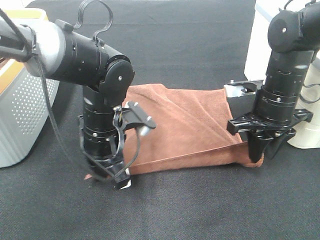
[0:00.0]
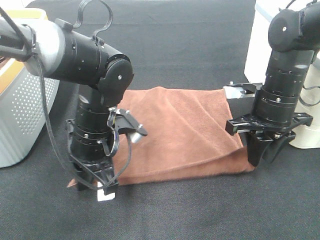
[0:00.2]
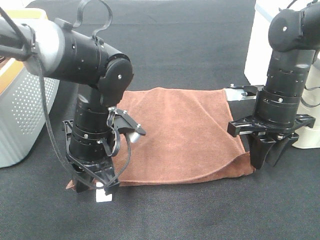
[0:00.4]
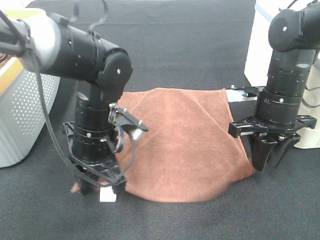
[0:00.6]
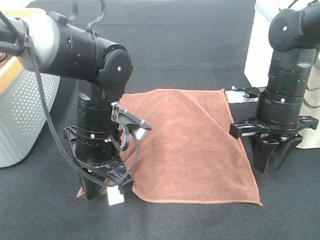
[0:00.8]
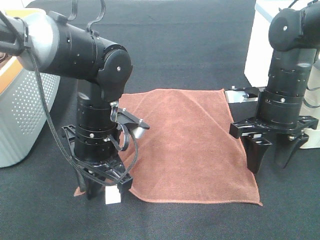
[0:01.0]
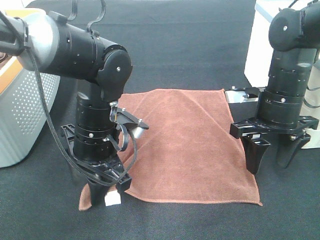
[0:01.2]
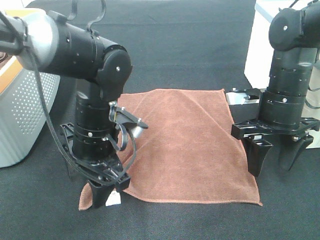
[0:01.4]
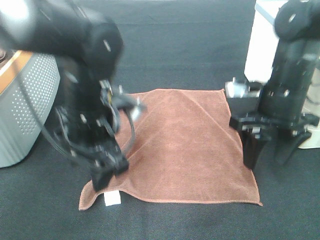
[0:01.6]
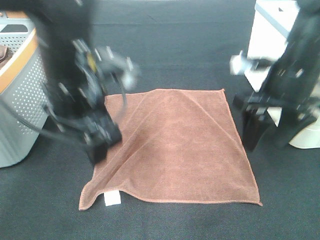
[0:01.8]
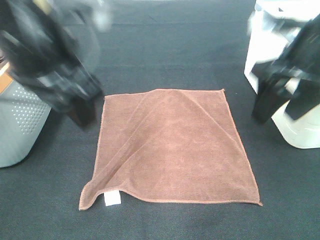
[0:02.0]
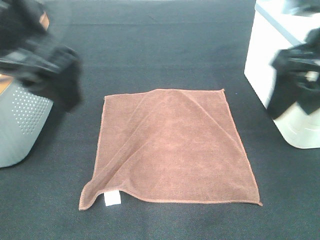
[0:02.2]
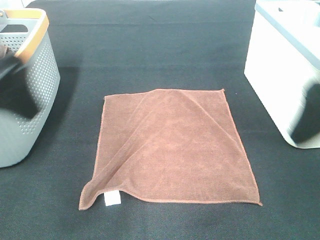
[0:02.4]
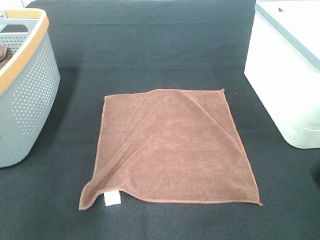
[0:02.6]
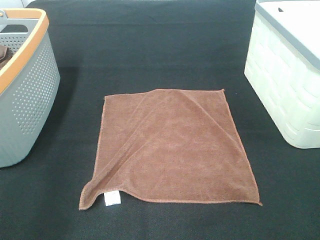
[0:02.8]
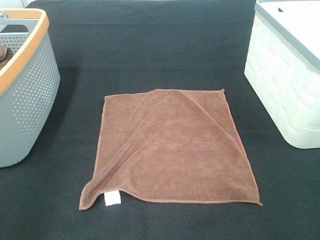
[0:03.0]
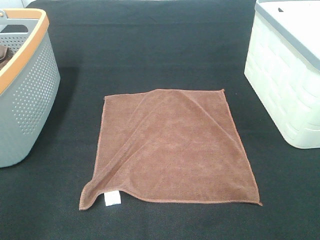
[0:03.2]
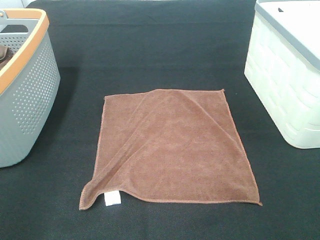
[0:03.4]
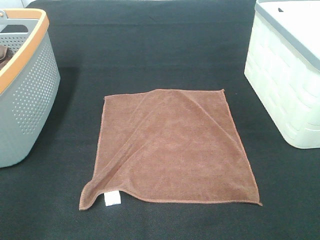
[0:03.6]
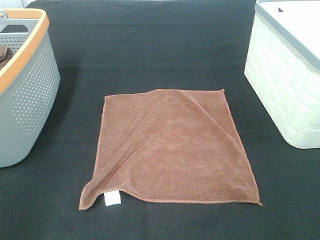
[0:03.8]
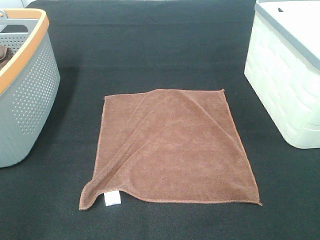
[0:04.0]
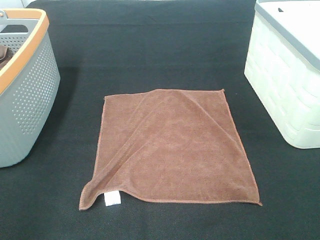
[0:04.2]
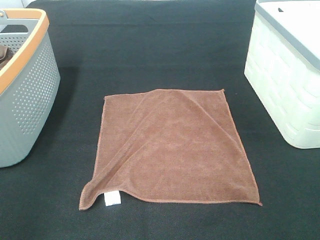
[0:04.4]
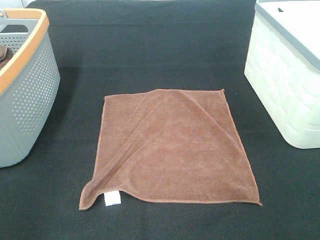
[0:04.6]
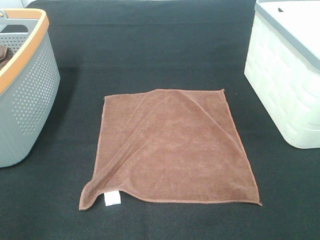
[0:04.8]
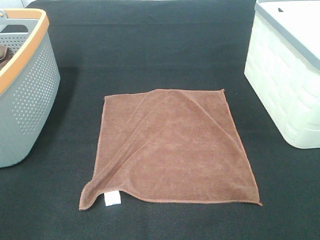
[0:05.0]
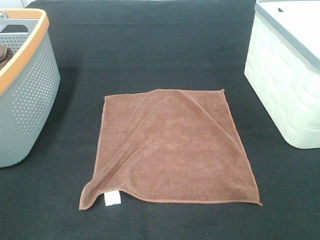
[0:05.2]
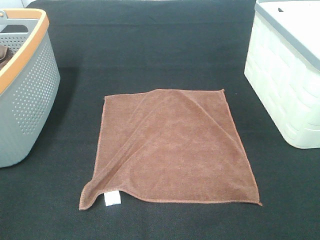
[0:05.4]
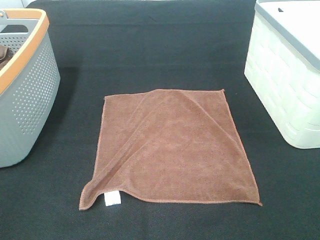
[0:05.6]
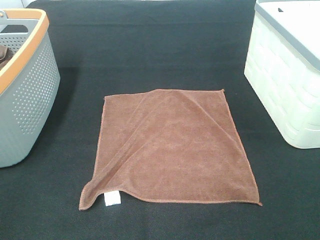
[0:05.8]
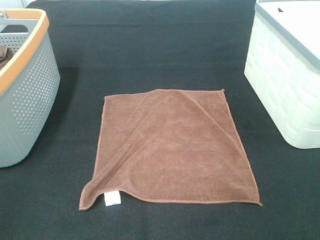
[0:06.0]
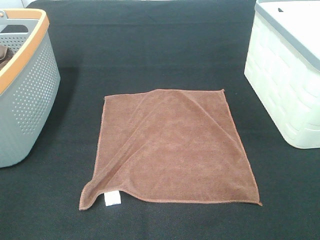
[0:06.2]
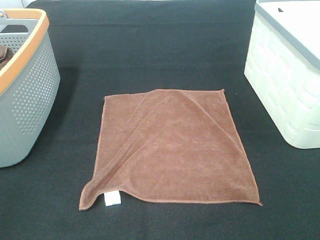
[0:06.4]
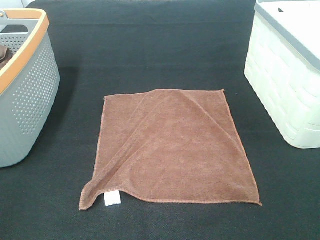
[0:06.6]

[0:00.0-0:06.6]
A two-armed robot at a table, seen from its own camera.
Task of the whole recording: Remove the towel and place it.
0:00.0 to 0:01.6: The right gripper opens. The left gripper shifts some 5 cm upward, and opens.
0:01.6 to 0:03.2: The right gripper goes approximately 30 cm backward. The left gripper is displaced backward, to the left and upward by approximately 30 cm.

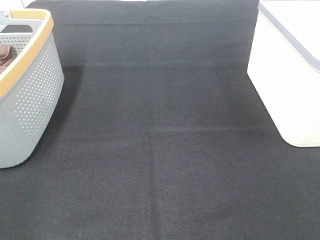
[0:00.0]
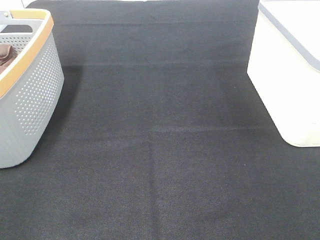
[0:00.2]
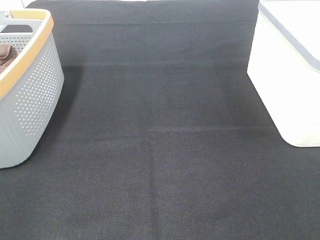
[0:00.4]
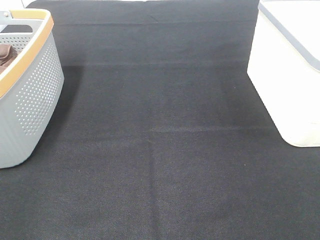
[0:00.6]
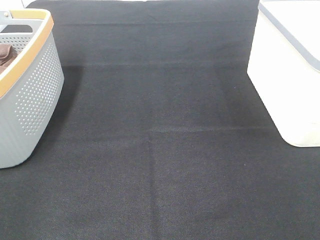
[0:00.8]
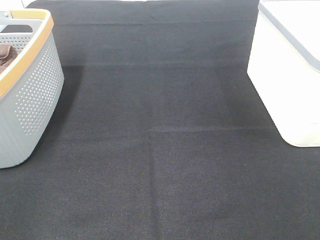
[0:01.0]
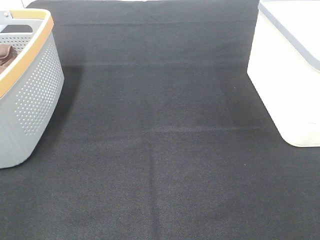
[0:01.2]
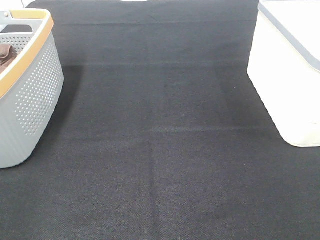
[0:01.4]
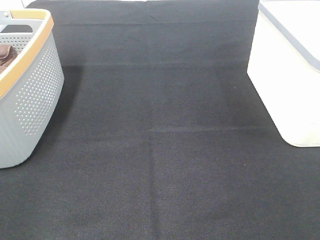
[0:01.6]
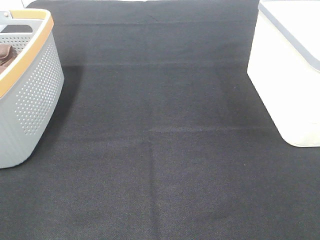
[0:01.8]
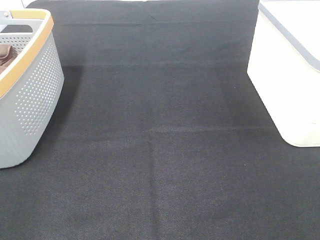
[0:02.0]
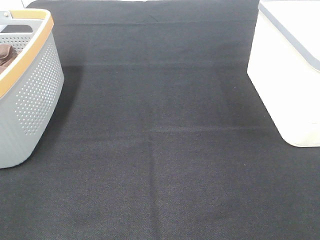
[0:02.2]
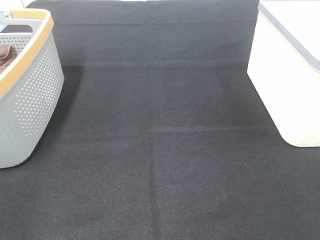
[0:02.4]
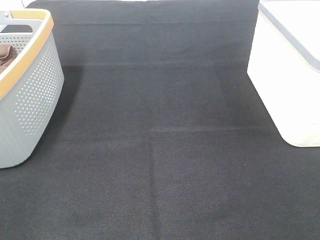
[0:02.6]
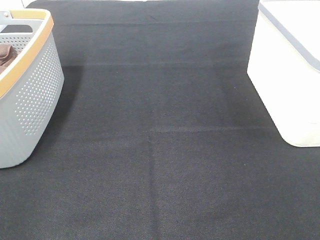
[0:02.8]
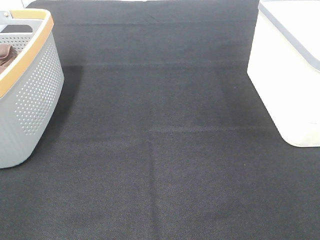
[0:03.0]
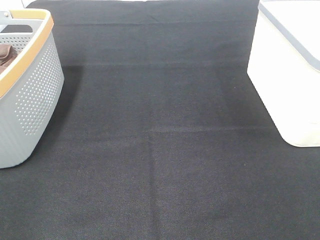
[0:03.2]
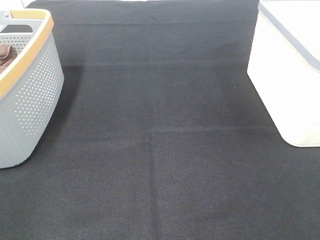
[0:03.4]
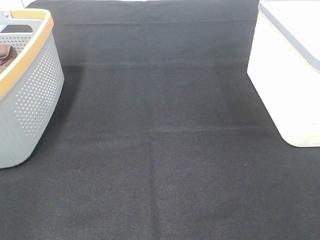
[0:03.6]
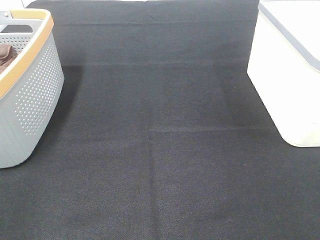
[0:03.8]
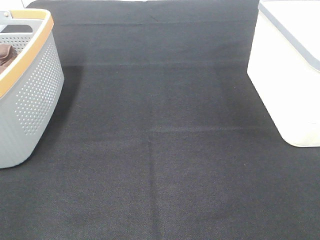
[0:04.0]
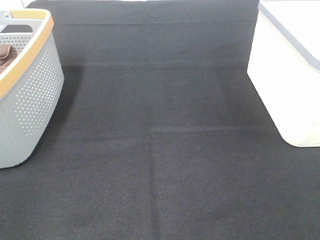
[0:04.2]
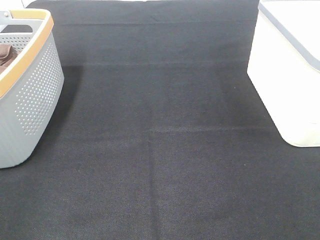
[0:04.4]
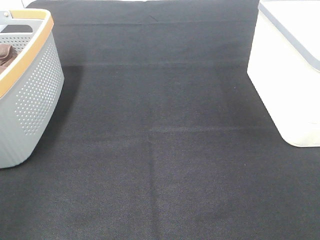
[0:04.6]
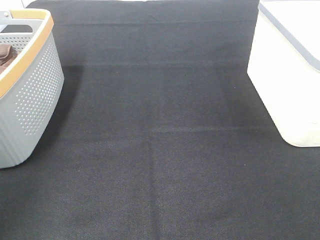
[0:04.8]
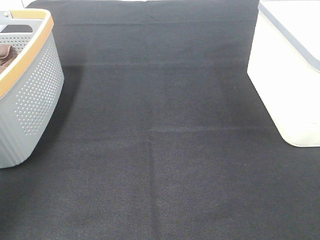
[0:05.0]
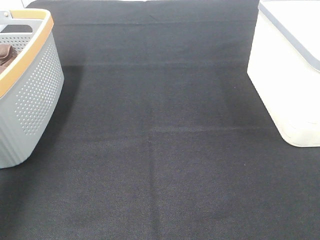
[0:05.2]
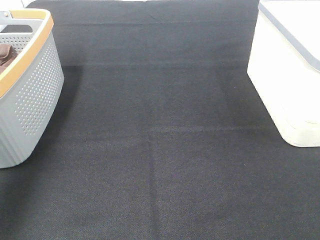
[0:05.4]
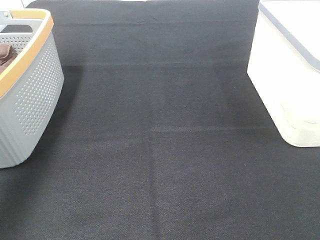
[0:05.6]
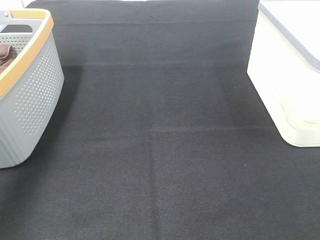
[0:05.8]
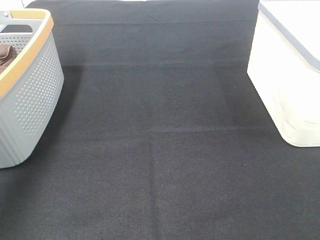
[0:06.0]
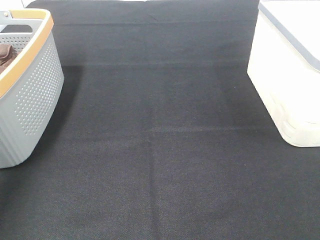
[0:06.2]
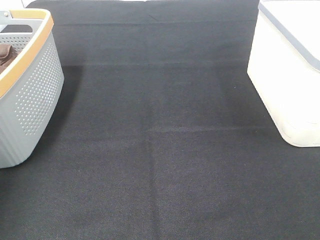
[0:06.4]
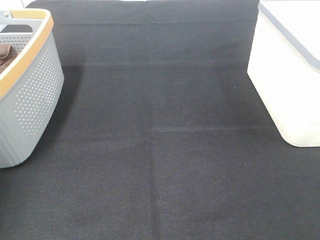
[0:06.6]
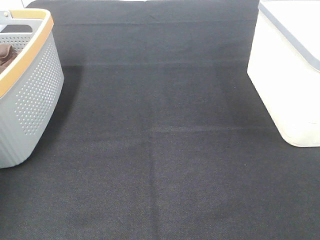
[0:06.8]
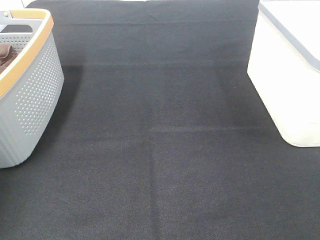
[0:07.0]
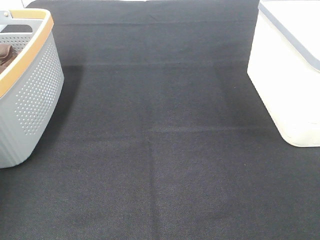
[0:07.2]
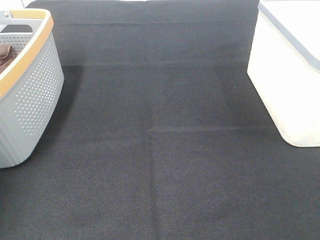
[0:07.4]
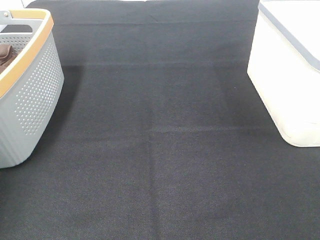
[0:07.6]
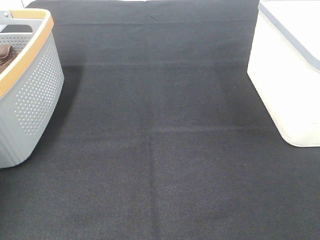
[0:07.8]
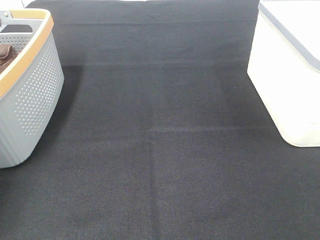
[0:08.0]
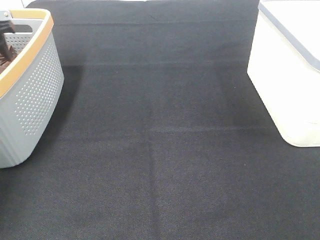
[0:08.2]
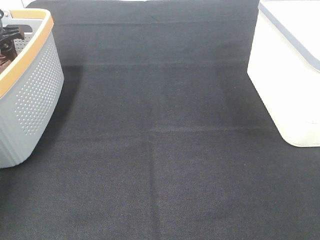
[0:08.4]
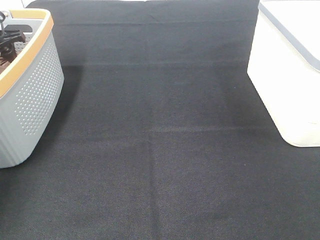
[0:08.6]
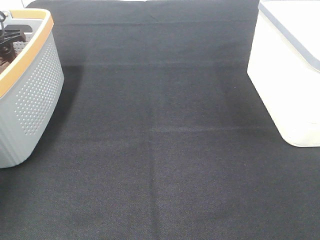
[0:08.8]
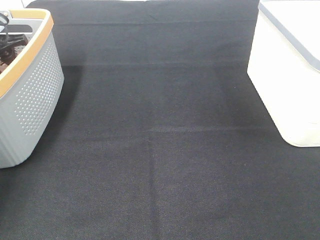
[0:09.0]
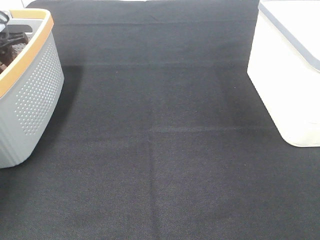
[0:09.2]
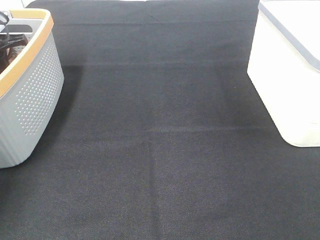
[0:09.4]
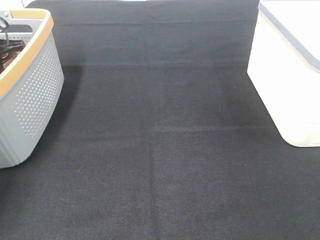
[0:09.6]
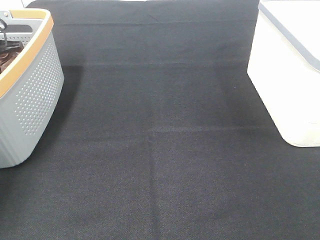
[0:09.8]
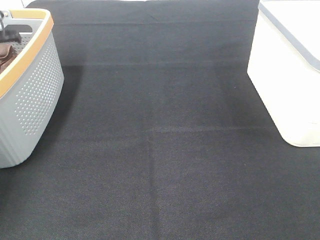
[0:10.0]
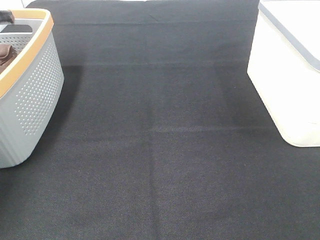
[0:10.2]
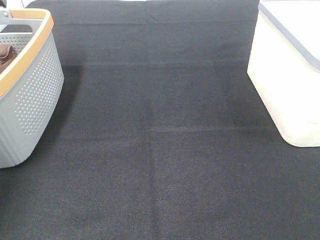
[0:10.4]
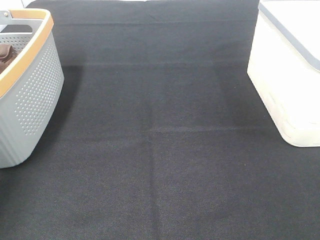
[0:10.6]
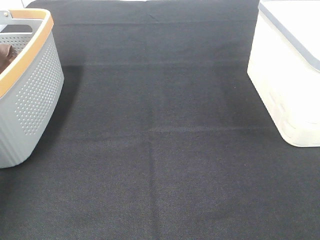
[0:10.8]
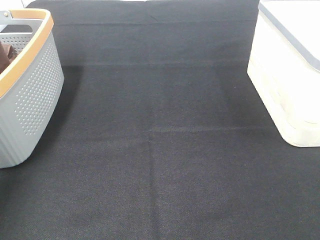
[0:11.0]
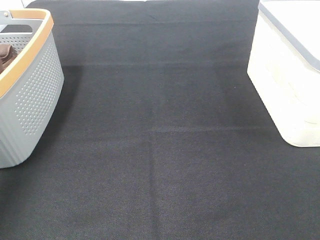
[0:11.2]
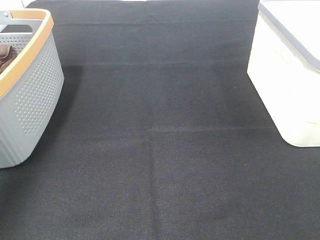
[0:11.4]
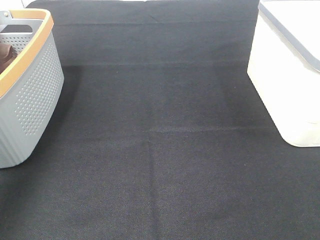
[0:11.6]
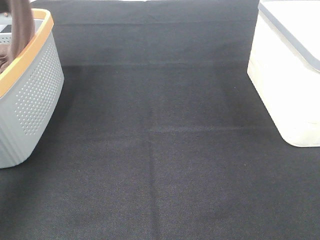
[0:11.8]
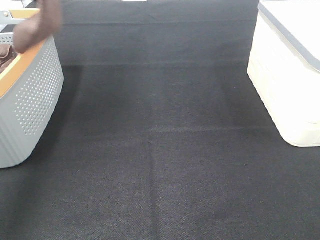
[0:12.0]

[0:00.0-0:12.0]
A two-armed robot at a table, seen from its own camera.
Task of the whole recording: Remove the towel and place it.
0:00.0 to 0:03.0: Both grippers stay put.
0:04.4 to 0:06.0: The left gripper moves forward, roughly 35 cm.
0:07.6 to 0:09.0: The left gripper heads downward, covering roughly 10 cm.
0:09.0 to 0:10.4: The left gripper travels upward by some 10 cm, and closes up.
0:10.4 to 0:12.0: The left gripper moves upward, backward and to the right, approximately 35 cm.

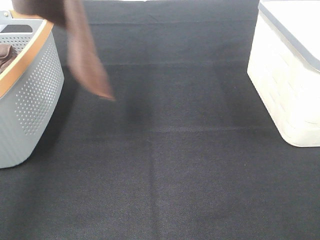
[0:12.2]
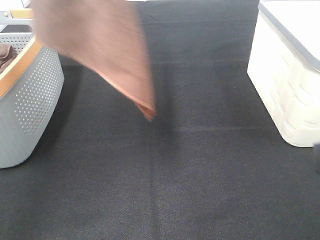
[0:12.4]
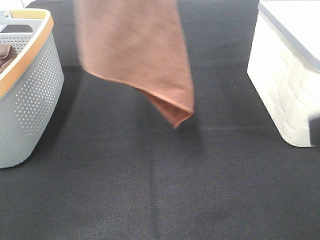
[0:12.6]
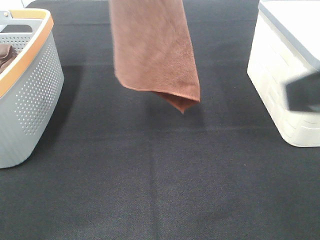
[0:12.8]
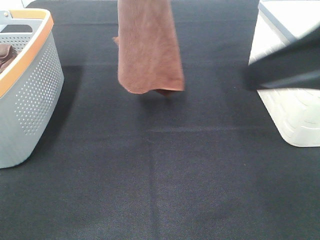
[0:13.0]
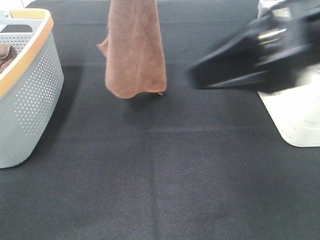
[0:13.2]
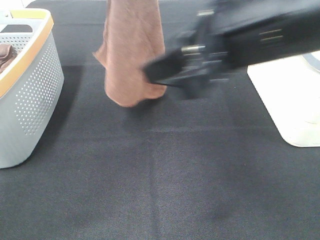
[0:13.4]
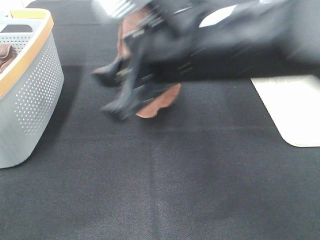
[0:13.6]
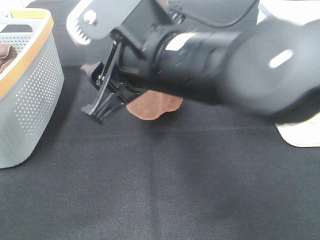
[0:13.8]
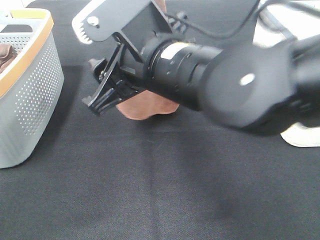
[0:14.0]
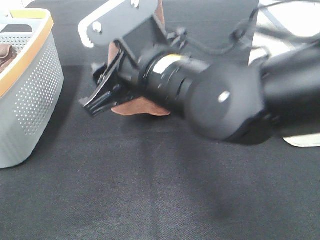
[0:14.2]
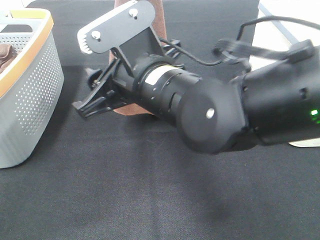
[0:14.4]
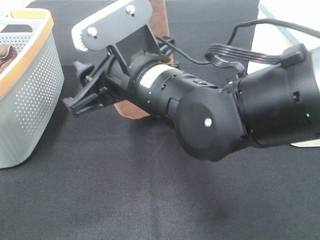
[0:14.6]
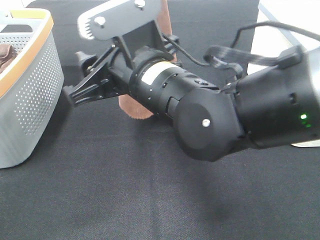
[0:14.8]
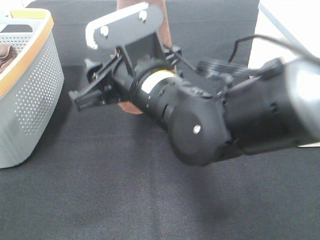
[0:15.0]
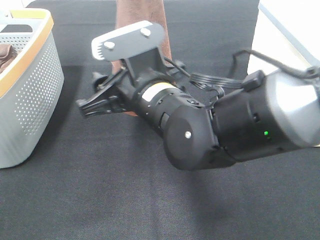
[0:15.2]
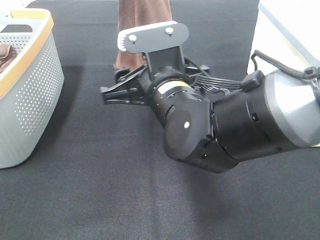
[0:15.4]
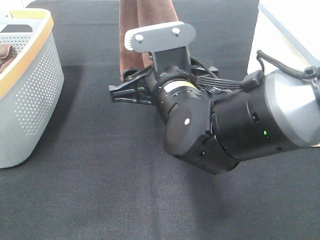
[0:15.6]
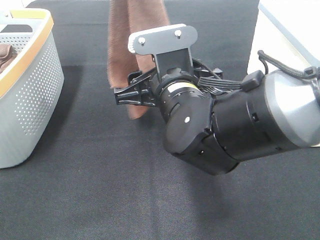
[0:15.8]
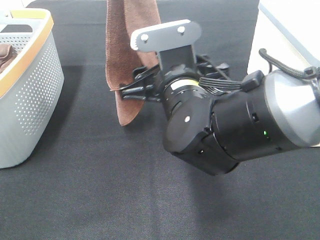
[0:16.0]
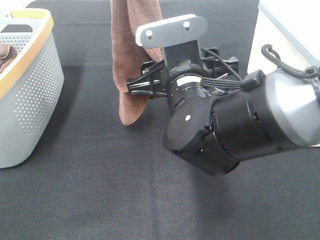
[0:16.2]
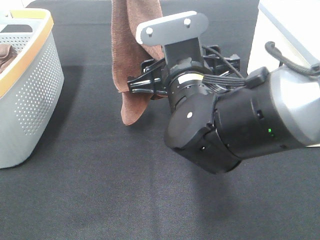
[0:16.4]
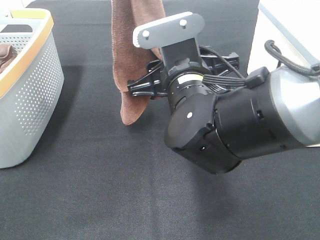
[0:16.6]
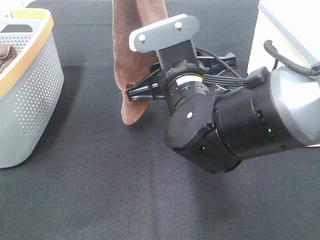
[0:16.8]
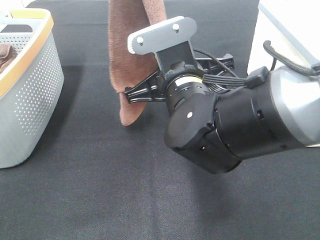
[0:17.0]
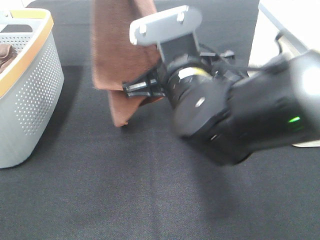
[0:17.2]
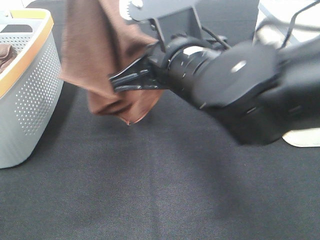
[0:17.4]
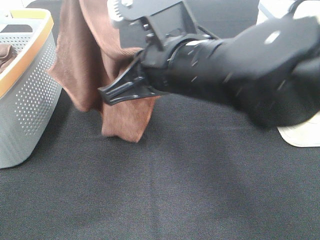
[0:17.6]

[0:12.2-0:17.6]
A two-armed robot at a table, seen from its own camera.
Task of the whole recording: Remove the towel and place it.
Step, 0:12.2 to 0:15.6: Right hand: grab a corner of the brown towel and straighten it.
0:12.2 to 0:13.6: The left gripper heads downward and to the right, covering approximately 15 cm; the right gripper moves to the left and forward, about 25 cm.
0:13.6 to 0:15.0: The right gripper shifts about 10 cm downward.
0:15.0 to 0:16.2: The right gripper ends up roughly 5 cm from where it was.
0:16.2 to 0:17.6: The left gripper moves roughly 5 cm. Meanwhile the right gripper shifts some 5 cm upward, and closes its fingers.
